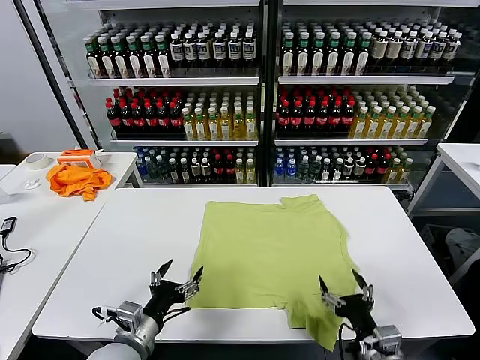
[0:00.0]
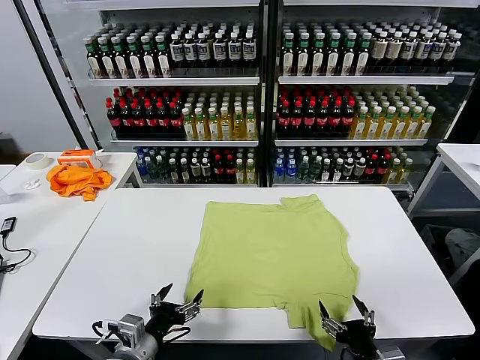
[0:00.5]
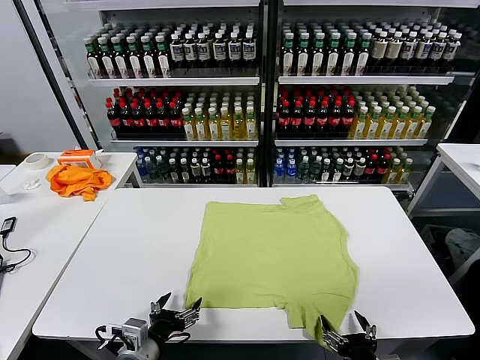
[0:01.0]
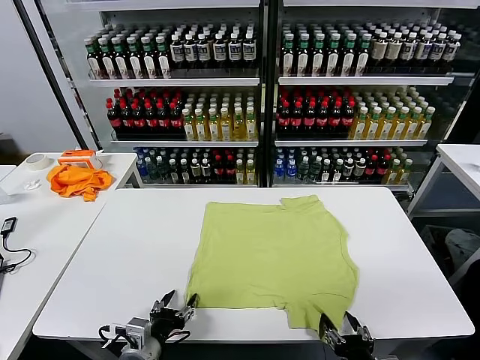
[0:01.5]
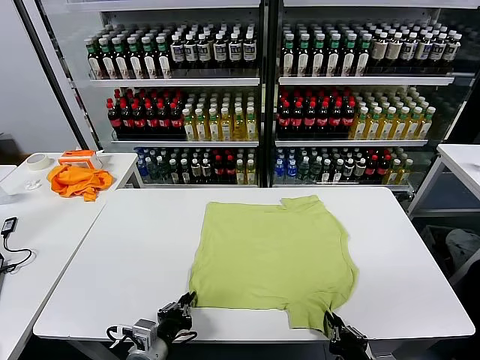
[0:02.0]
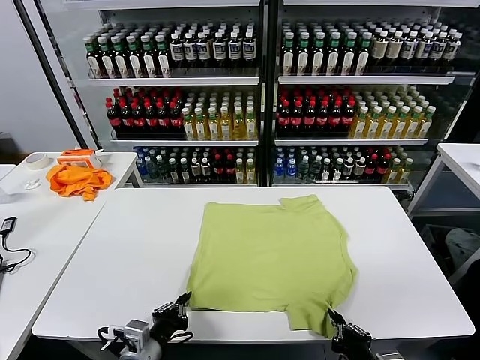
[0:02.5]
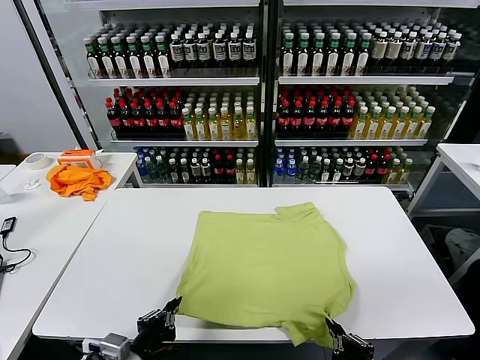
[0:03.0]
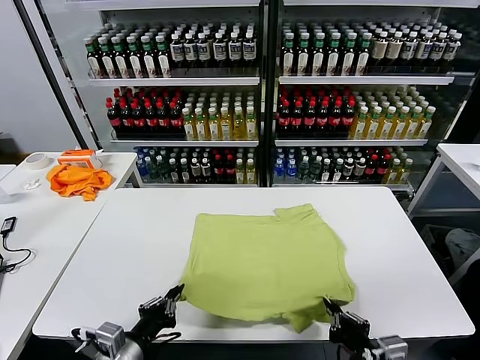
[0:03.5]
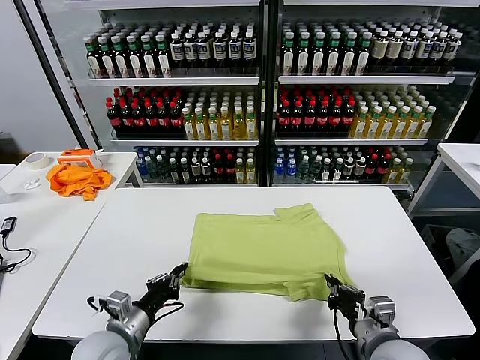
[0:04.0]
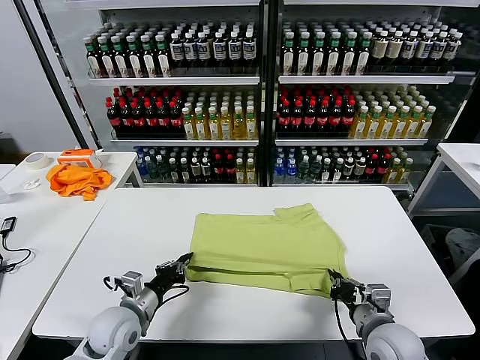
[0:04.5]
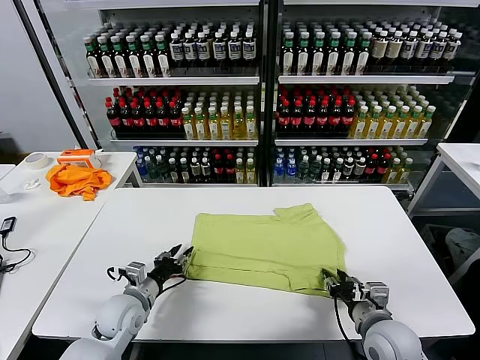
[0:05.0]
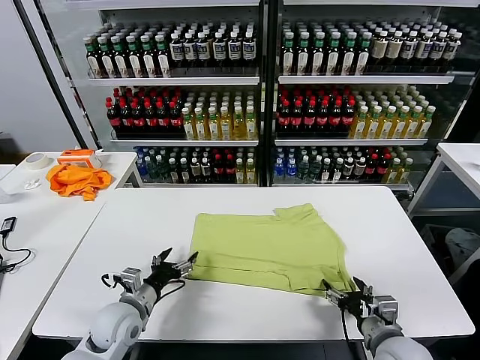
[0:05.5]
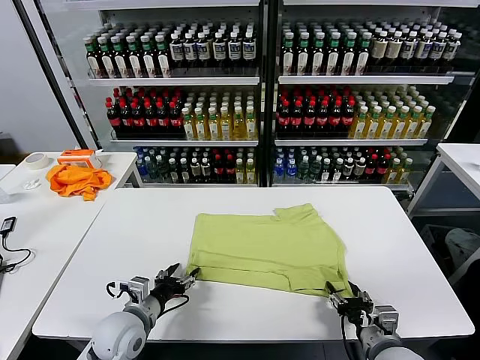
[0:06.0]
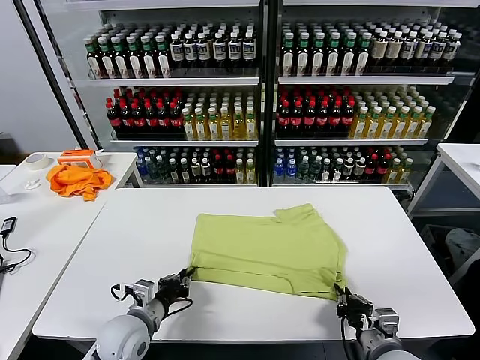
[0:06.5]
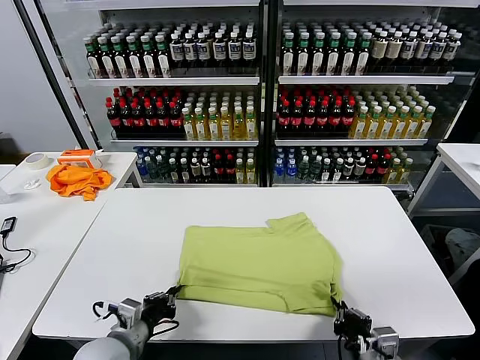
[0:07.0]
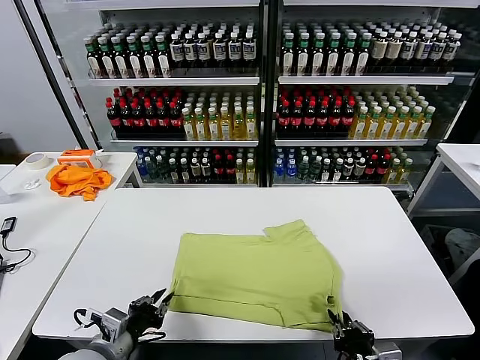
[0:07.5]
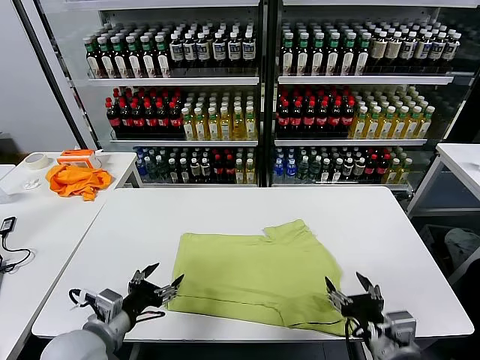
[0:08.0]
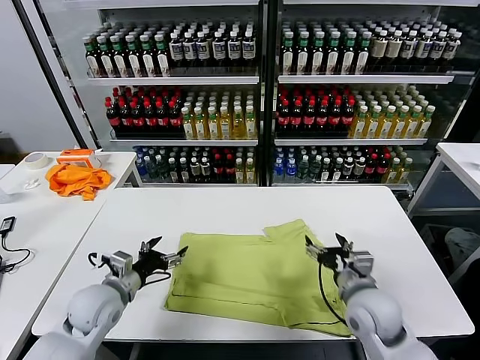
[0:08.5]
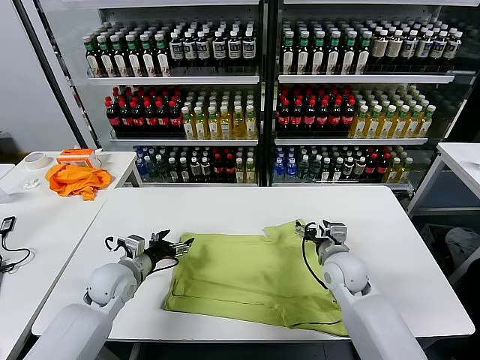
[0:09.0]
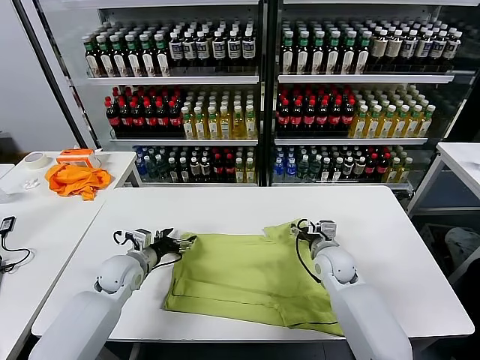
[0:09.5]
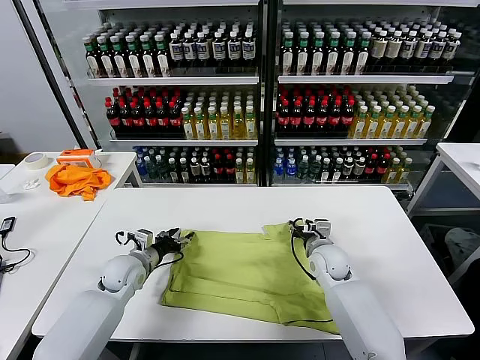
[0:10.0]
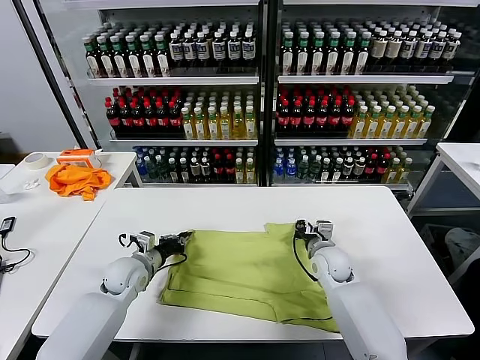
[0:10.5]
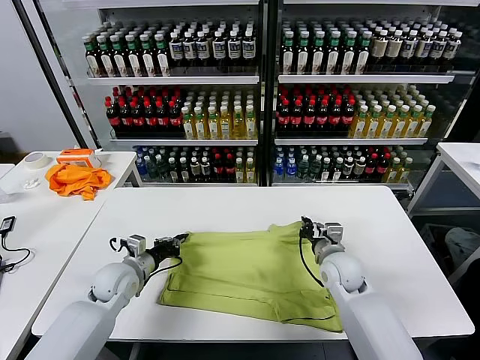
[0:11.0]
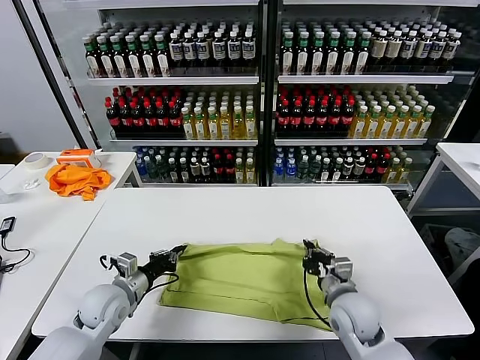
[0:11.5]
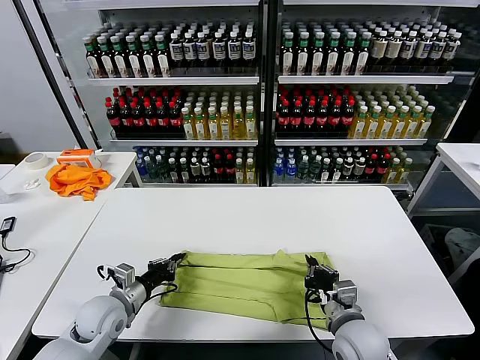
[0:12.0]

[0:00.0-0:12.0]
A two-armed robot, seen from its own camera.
Task of the whole recording: fold and organize the clothes.
Step, 0:00.0 to 0:02.0: use both grippers simultaneously to clamp the lower edge of the clothing fabric.
Step, 0:03.0 to 0:05.0: use both grippers to drag the lower edge of the fabric forward and fold it over the upper edge.
Step, 0:05.5 to 0:07.5: Drag the clothes downward with both gripper.
Step, 0:08.0 to 0:10.5: use both grippers simultaneously to clamp the upper edge of the clothing fabric.
0:02.0 to 0:04.0: The right gripper travels forward by roughly 10 cm; the left gripper shifts some 10 cm to the left and forward.
0:04.0 to 0:06.0: The left gripper opens up. The right gripper ends up roughly 5 cm from where it was, and opens its fingers.
0:06.0 to 0:08.0: The left gripper shifts some 10 cm upward and backward, and closes, then opens again; the right gripper is displaced upward by approximately 10 cm, and opens up.
0:08.0 to 0:10.0: The left gripper is displaced forward and downward by roughly 20 cm; the right gripper travels forward by some 25 cm.
0:10.0 to 0:12.0: The right gripper travels backward by roughly 20 cm, and closes. Meanwhile the left gripper shifts approximately 10 cm backward, and closes its fingers.

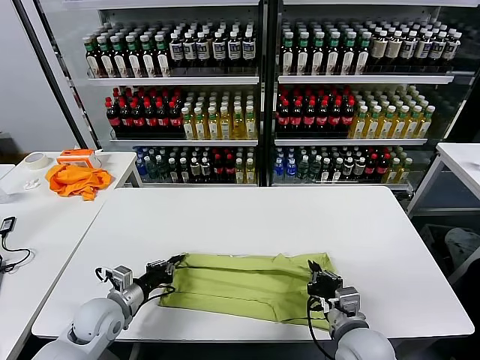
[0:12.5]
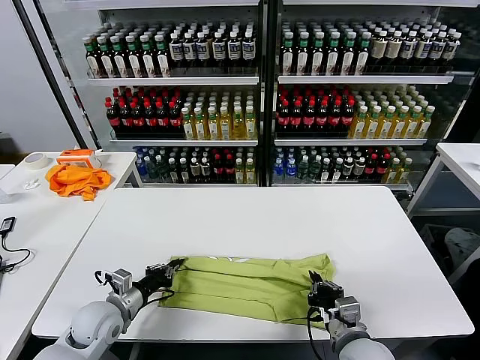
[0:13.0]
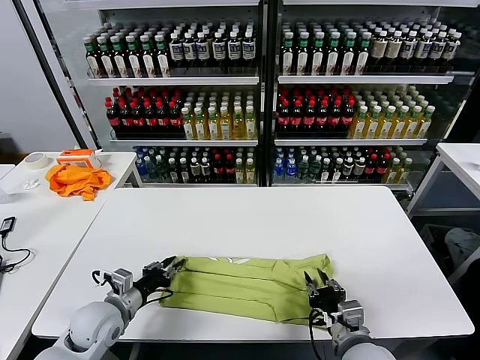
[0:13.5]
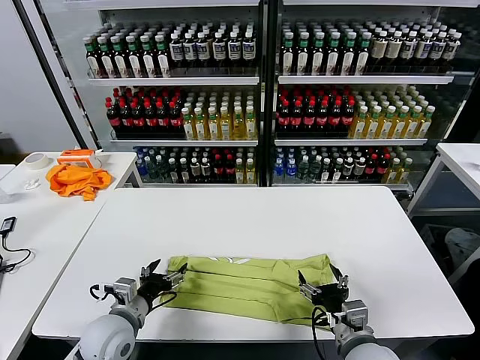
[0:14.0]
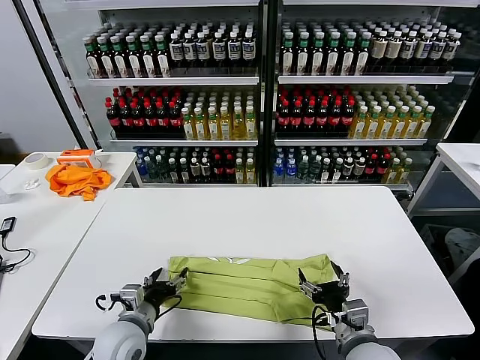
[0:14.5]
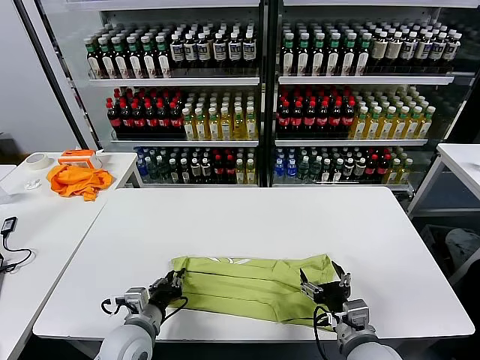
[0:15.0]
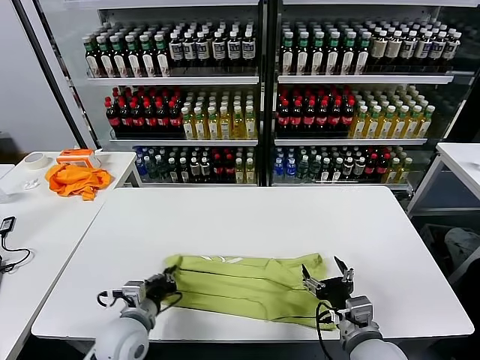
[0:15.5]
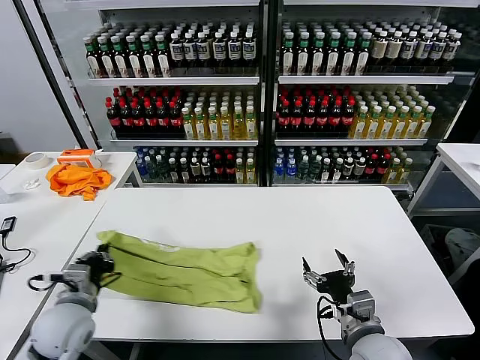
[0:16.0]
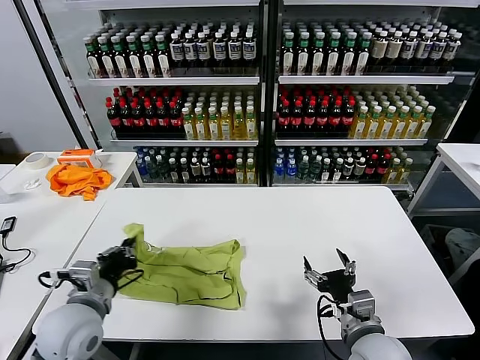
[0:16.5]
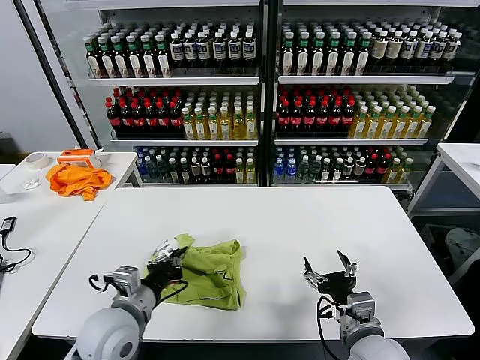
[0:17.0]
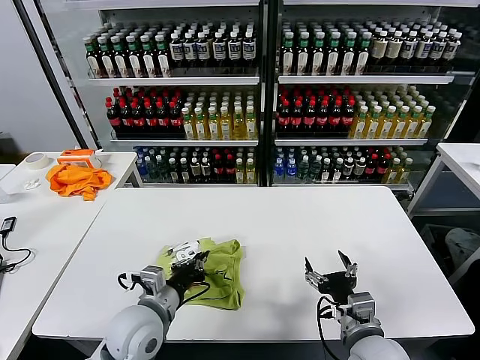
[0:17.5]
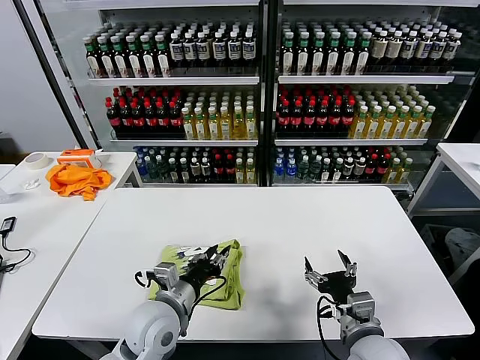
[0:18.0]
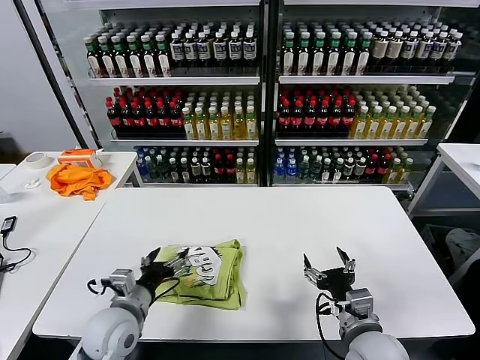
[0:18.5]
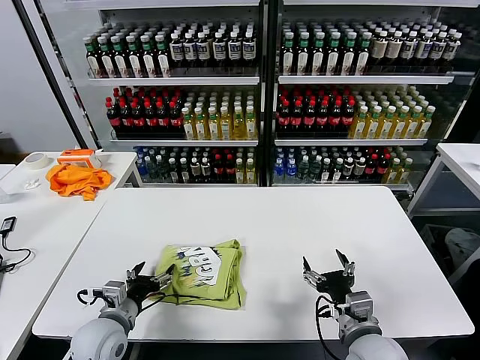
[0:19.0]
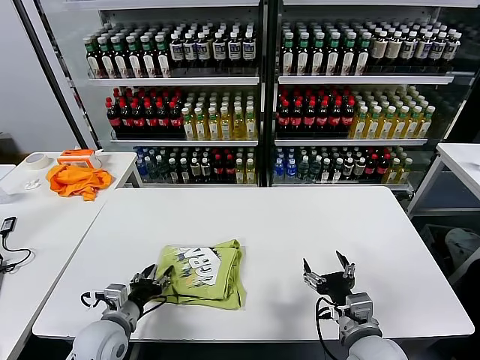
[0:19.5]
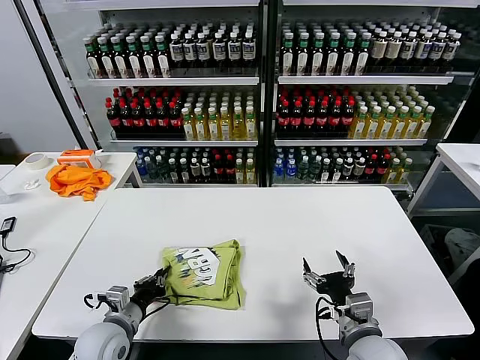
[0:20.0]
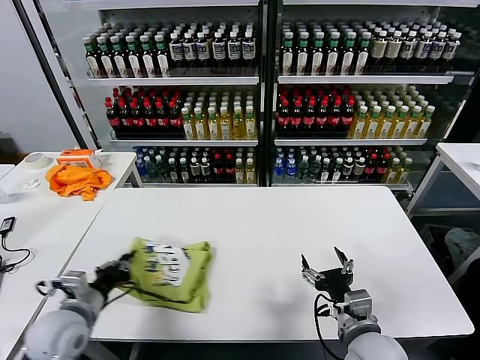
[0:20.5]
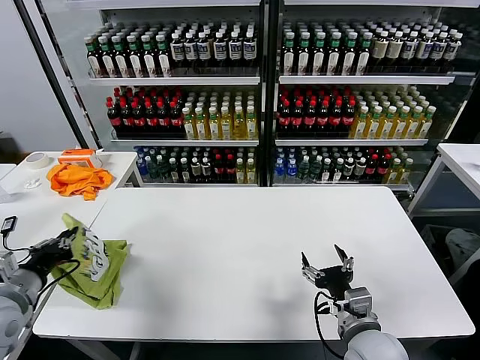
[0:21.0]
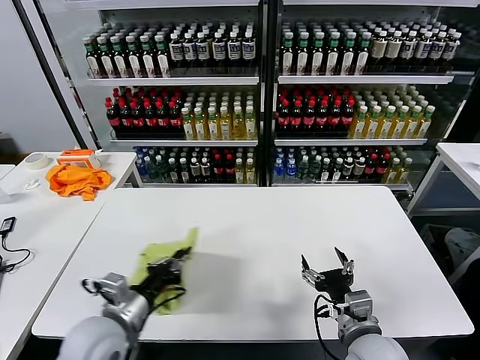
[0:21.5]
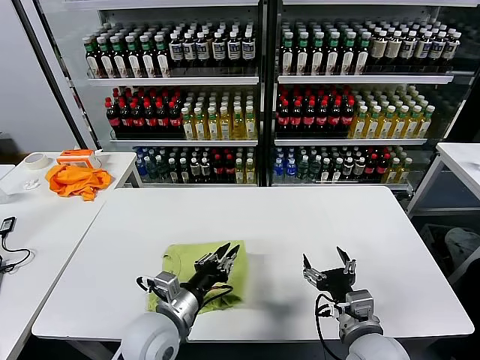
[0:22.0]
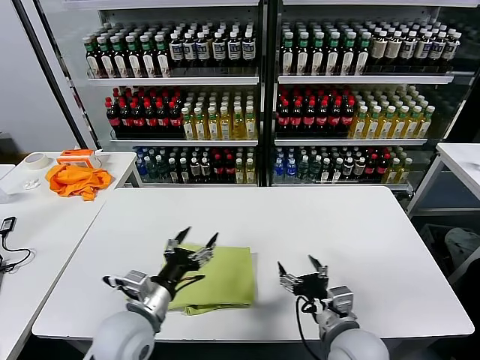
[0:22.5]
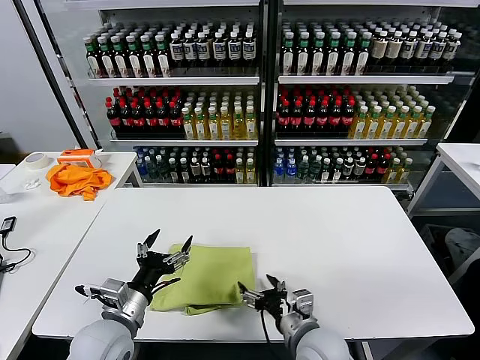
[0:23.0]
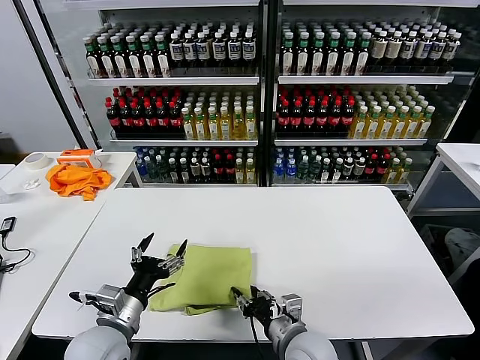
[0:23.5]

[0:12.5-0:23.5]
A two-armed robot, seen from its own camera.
Task of the whole recording: fold and organize the clothes.
Step, 0:14.0 to 0:15.0: use the left gripper to clamp the left edge of the fabric.
Step, 0:15.5 to 0:17.5: use the left gripper to drag the left edge of the fabric to the left and folds it over the right edge.
Step, 0:18.5 to 0:22.0: Flip the folded clothes over with left gripper.
0:12.5 to 0:14.5: The right gripper opens its fingers; the left gripper goes about 10 cm to the right and backward, and opens up.
0:14.5 to 0:16.0: The left gripper moves to the left and upward, some 10 cm, and closes its fingers.
0:16.0 to 0:18.0: The left gripper heads to the right, covering approximately 15 cm, and opens.
0:18.0 to 0:20.0: The left gripper is displaced to the left and downward by about 15 cm, and opens, then closes once more.
0:20.0 to 0:21.5: The left gripper shifts approximately 10 cm upward, and moves roughly 15 cm to the left and comes back.
0:21.5 to 0:23.5: The right gripper travels to the left by some 10 cm, and closes its fingers. Meanwhile the left gripper reaches some 10 cm to the right, then returns, and opens its fingers.

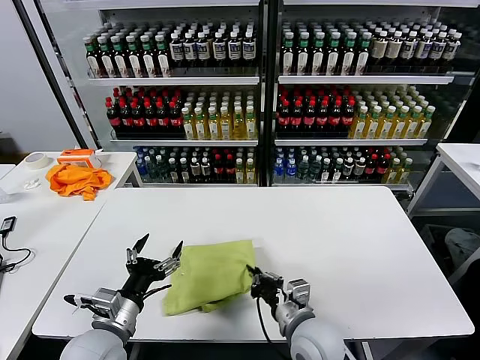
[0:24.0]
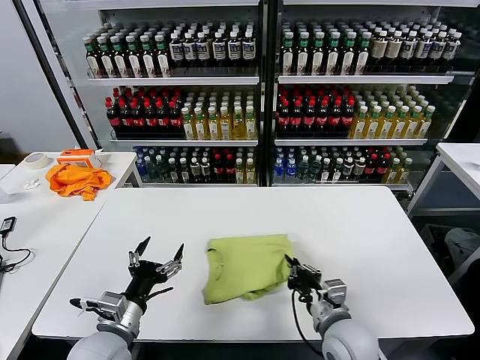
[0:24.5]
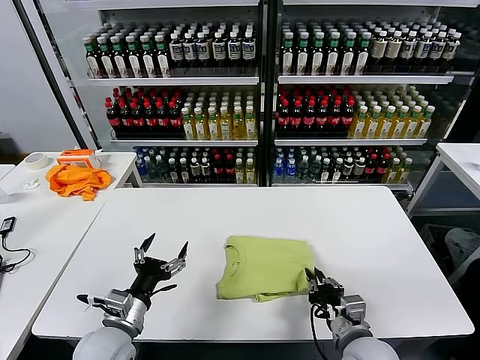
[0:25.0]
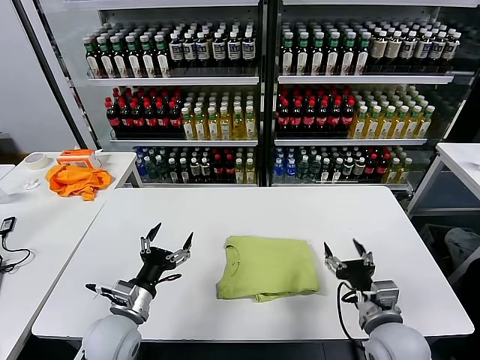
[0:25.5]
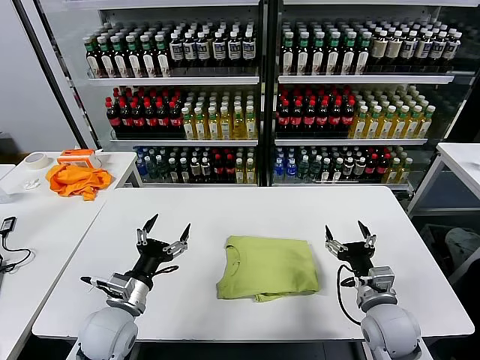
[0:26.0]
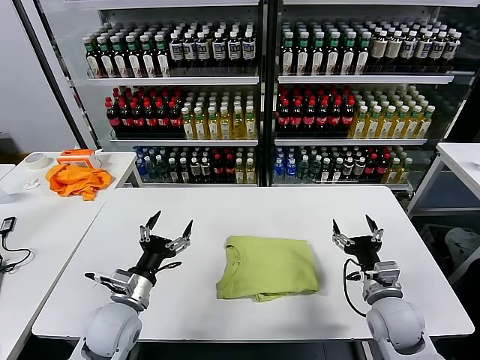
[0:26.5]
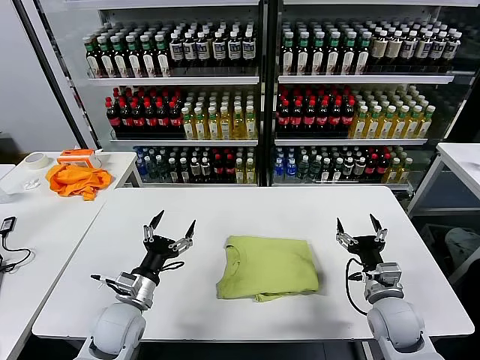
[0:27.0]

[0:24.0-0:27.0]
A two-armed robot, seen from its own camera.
Task of the whole recording: fold and organize the clothes.
0:24.0 to 0:25.5: The right gripper shifts about 15 cm to the right, and opens. The left gripper shifts by roughly 5 cm.
0:25.5 to 0:27.0: The right gripper goes roughly 5 cm forward.
